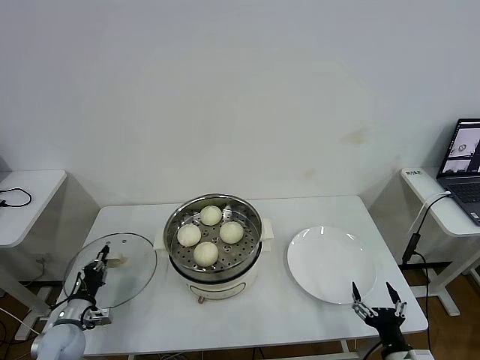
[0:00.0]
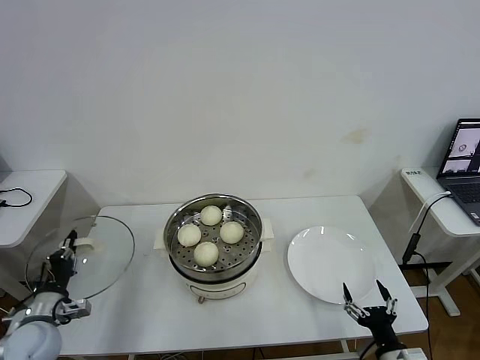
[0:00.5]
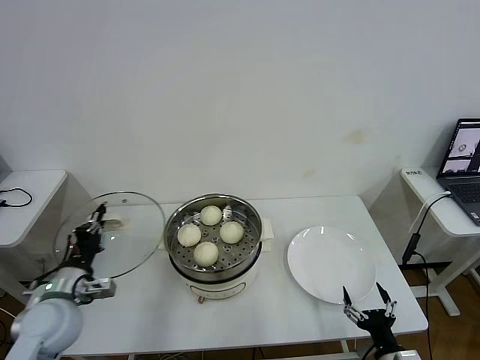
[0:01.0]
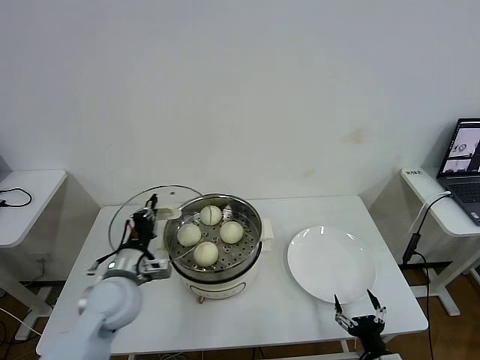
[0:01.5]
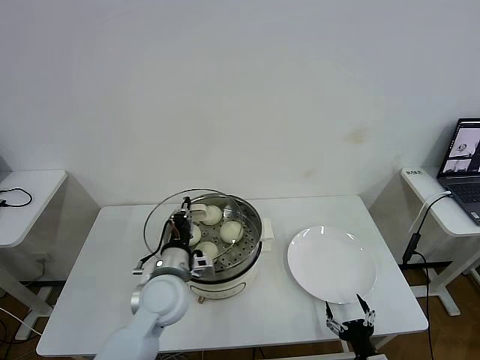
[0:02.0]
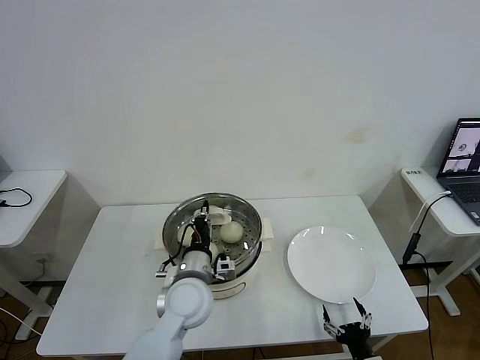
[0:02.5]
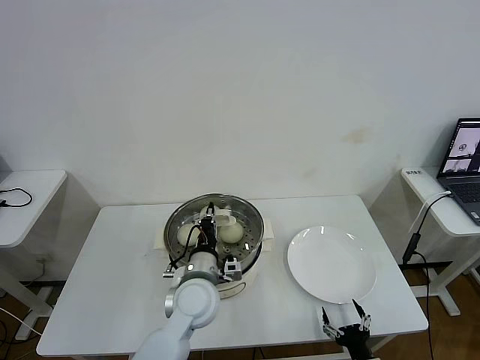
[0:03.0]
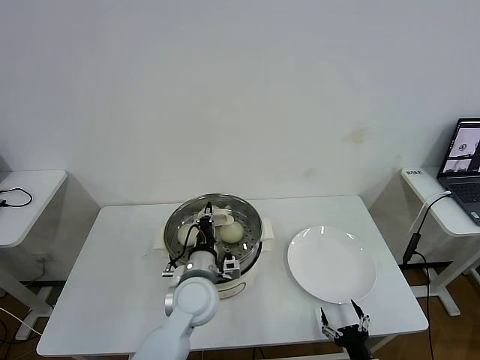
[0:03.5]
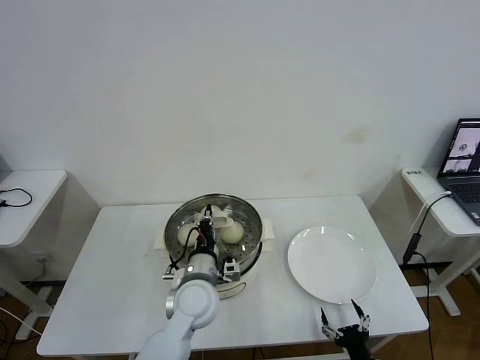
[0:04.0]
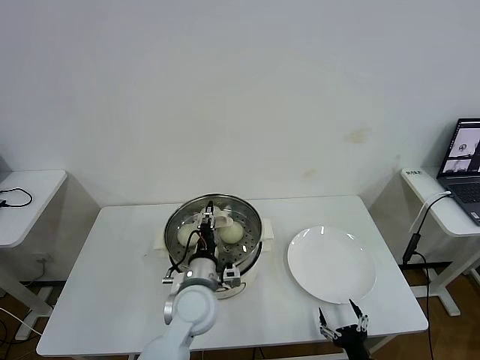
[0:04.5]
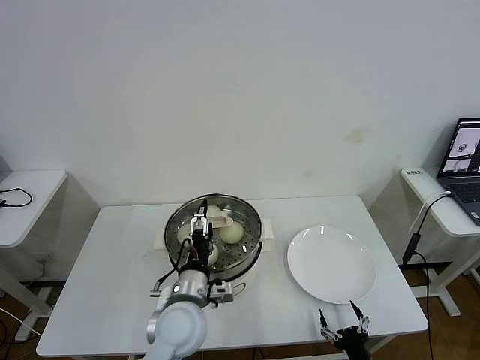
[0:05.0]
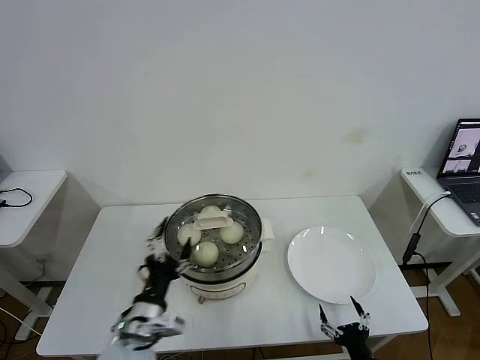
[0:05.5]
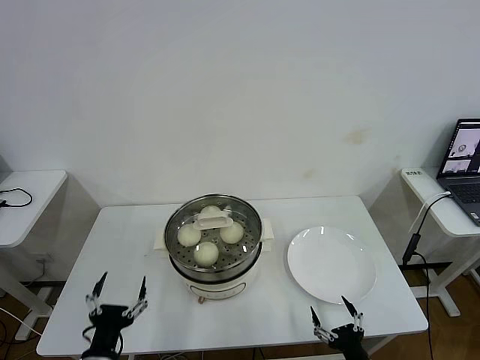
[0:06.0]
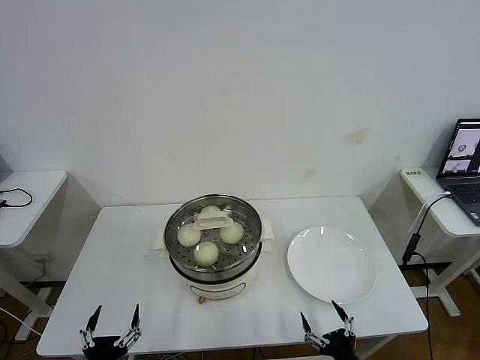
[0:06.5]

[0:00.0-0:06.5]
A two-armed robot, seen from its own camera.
Task of the whole recording: take steamed baozi put them in steamer then cover it.
Step, 0:00.0 to 0:04.5: Place the pot lid on the steamer with left gripper.
0:00.0 to 0:02.0: The left gripper goes some 30 cm to the right and upward; the right gripper moves downward, about 5 cm.
0:02.0 to 0:04.5: The left gripper is displaced to the right by some 5 cm, and opens up.
0:04.5 to 0:06.5: The right gripper shifts by roughly 5 cm, while the left gripper moves backward and to the left, approximately 30 cm, and opens.

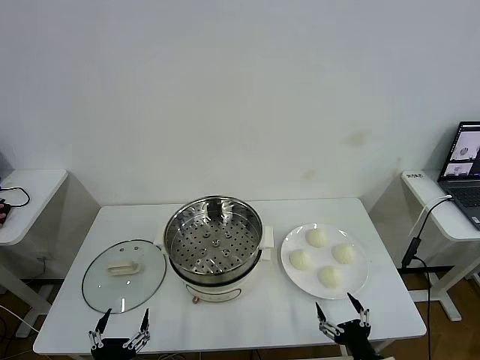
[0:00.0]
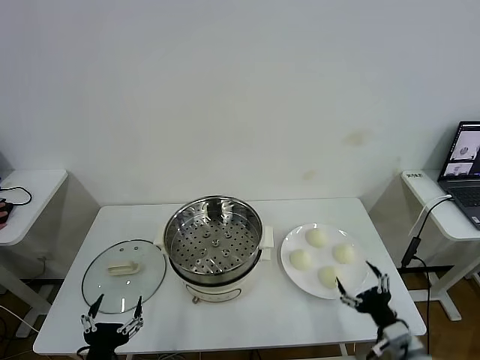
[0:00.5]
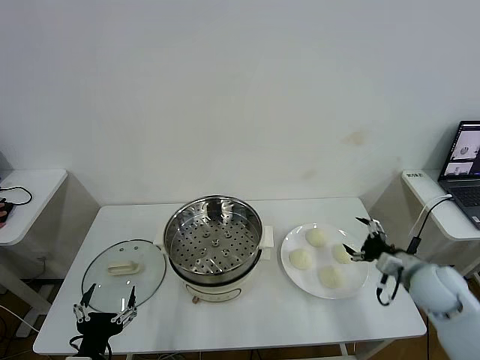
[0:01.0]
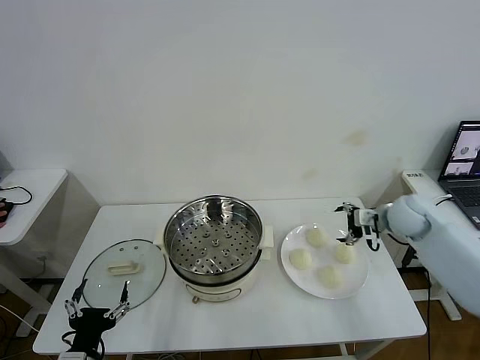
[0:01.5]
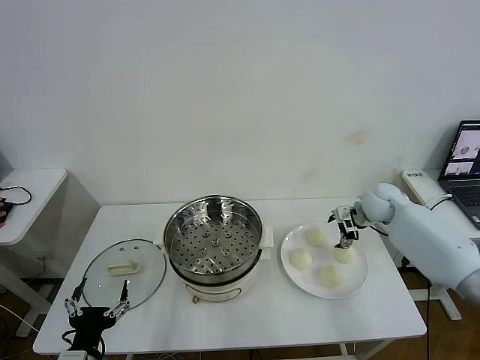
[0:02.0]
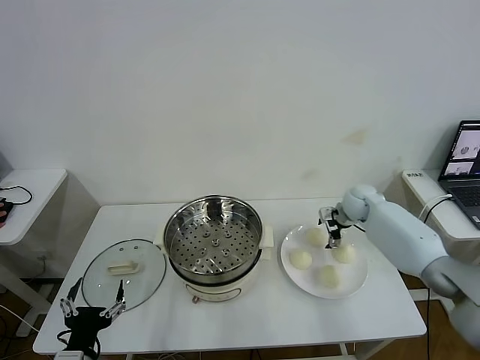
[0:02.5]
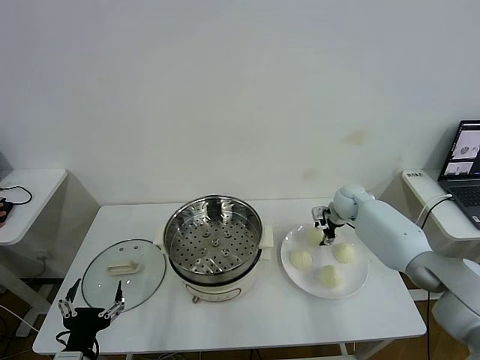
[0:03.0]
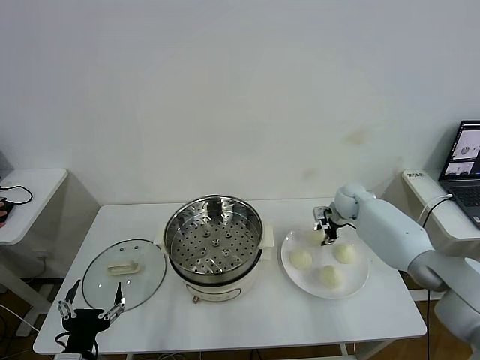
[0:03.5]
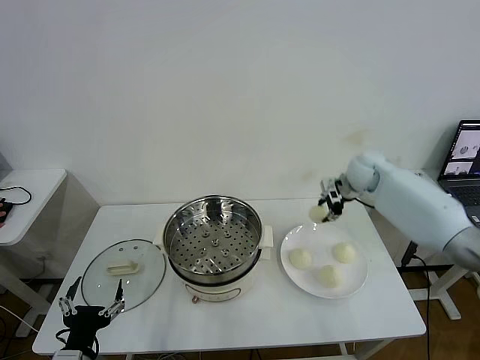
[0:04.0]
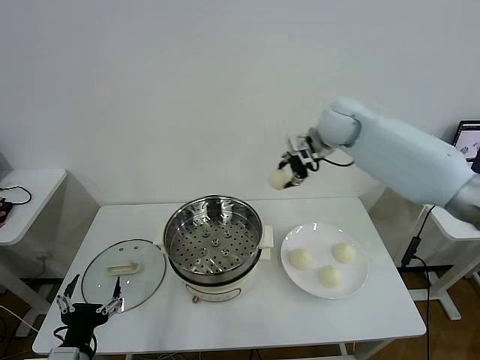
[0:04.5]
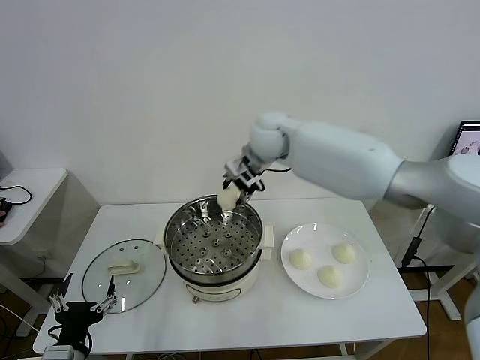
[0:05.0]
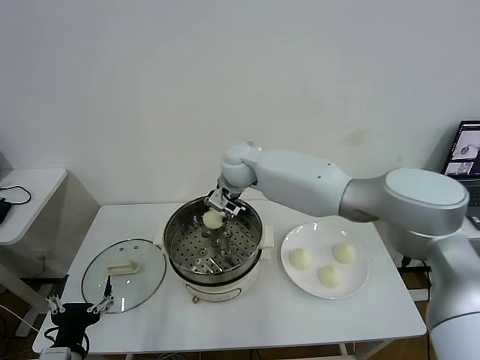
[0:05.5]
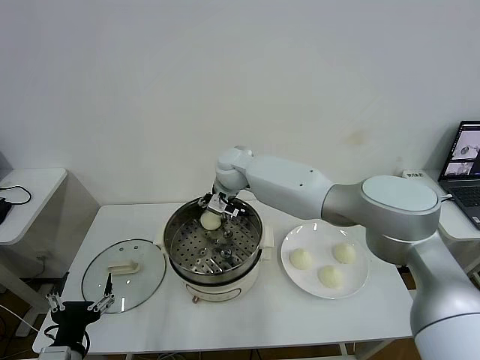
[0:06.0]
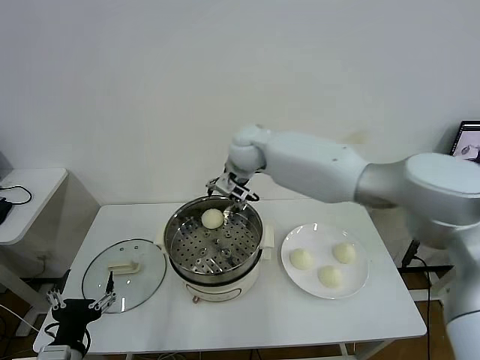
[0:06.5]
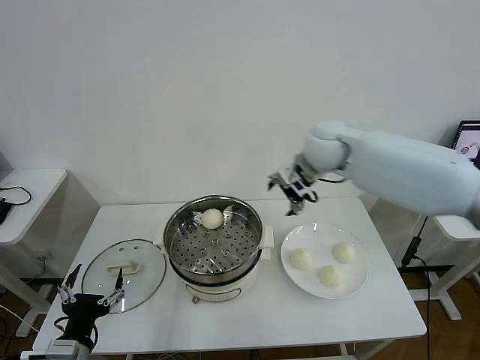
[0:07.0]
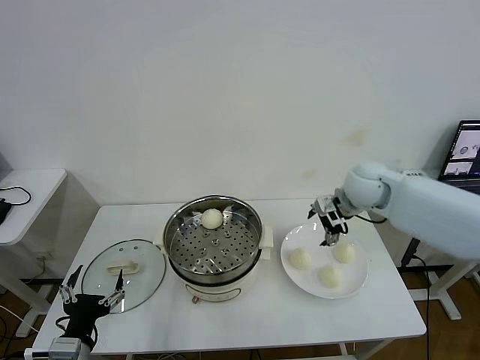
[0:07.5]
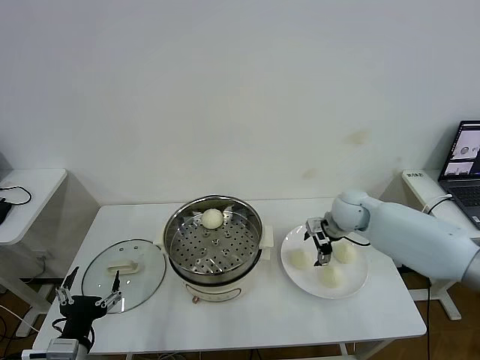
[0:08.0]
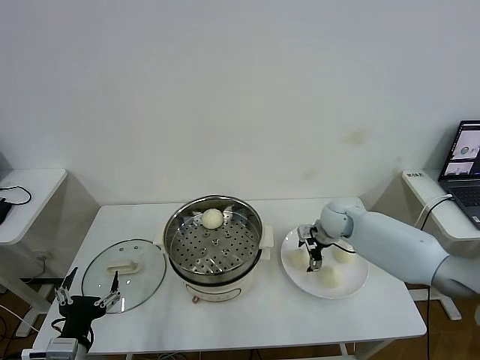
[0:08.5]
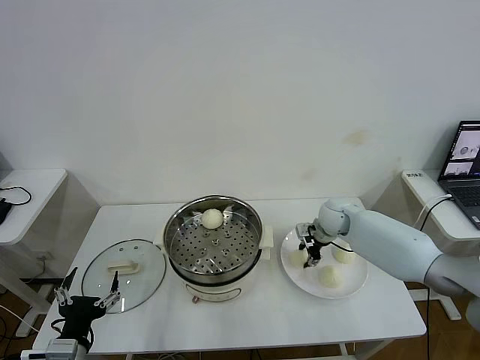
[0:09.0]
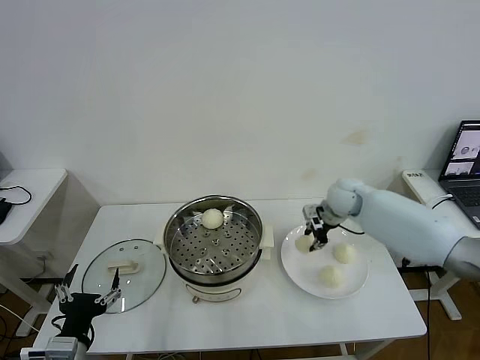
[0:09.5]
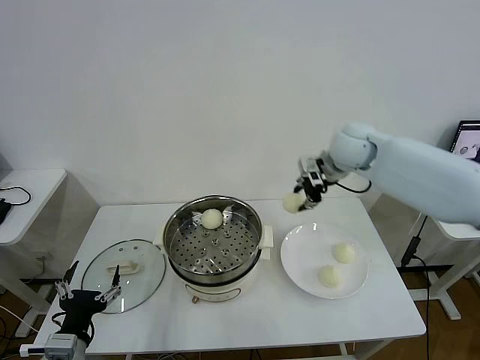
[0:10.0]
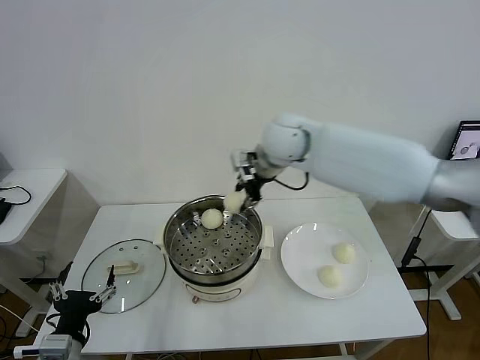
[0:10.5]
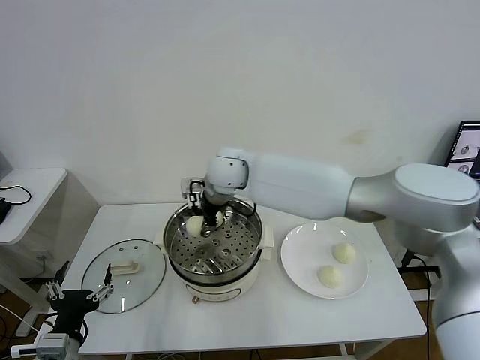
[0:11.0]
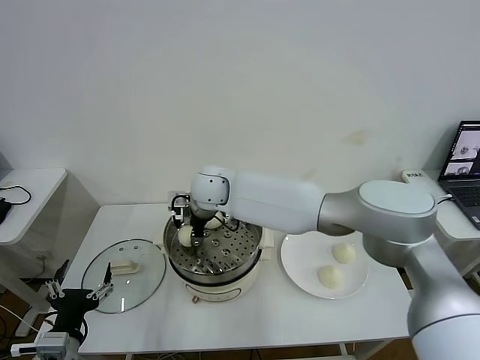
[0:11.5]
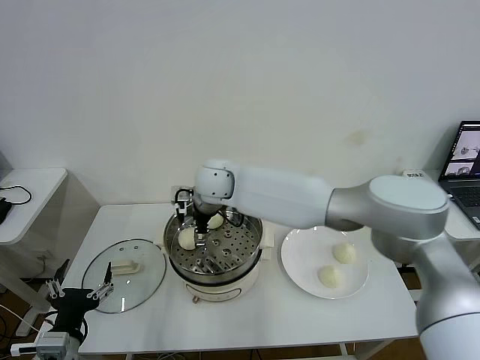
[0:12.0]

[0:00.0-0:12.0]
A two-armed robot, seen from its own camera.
Task of the whole recording: take steamed baozi put them in steamer then cover it.
Step, 0:00.0 to 0:03.0: Grasp the baozi in the plate with right gripper.
Step, 0:03.5 to 0:06.0: Place the baozi on the steamer with right gripper.
Step, 0:06.5 to 0:09.0: Grasp the baozi in the plate with right gripper.
Step, 0:09.5 to 0:12.0: Place the baozi on the steamer with right gripper.
0:02.0 to 0:04.0: The right gripper goes approximately 10 cm upward, and closes its fingers.
0:04.0 to 0:06.0: The right gripper travels to the left by some 35 cm.
0:06.0 to 0:08.0: The right gripper travels to the right by approximately 30 cm, and opens up.
0:08.0 to 0:10.0: The right gripper is displaced upward by about 15 cm, and closes its fingers.
0:10.0 to 0:12.0: The right gripper goes roughly 30 cm to the left, and opens.

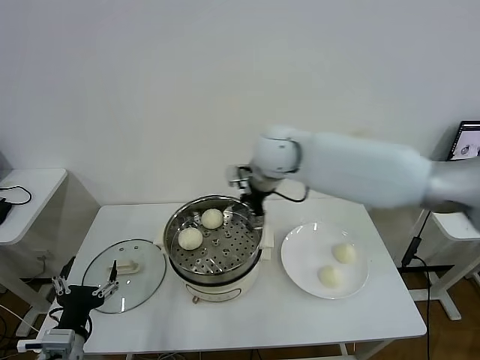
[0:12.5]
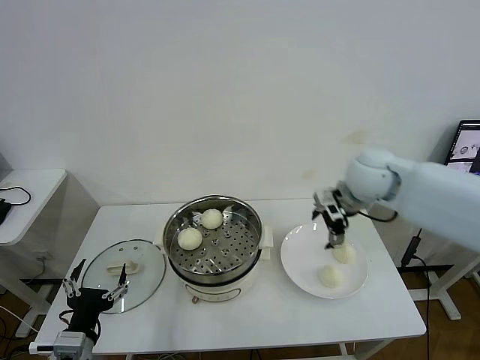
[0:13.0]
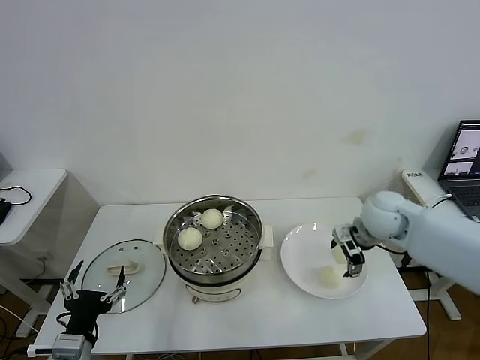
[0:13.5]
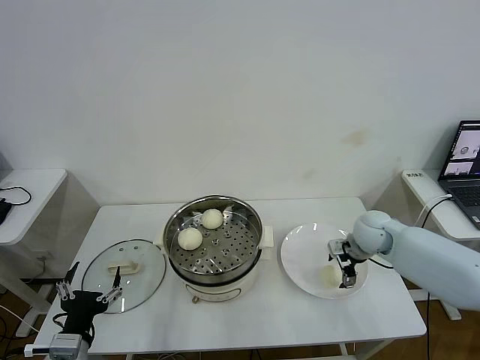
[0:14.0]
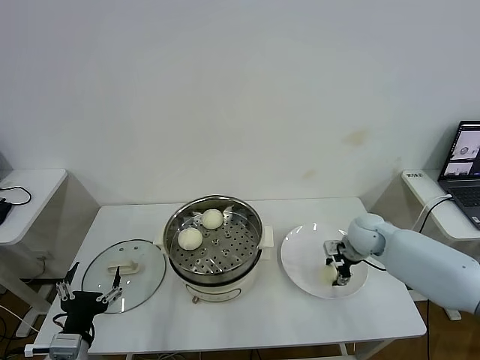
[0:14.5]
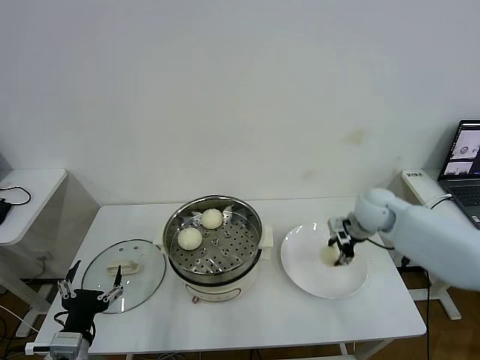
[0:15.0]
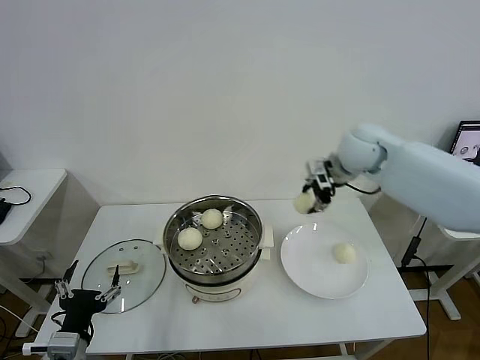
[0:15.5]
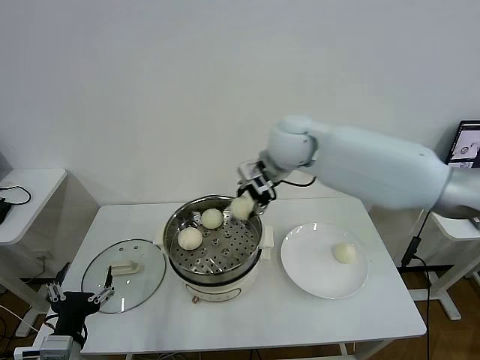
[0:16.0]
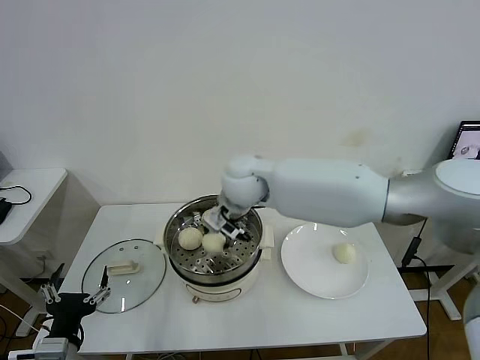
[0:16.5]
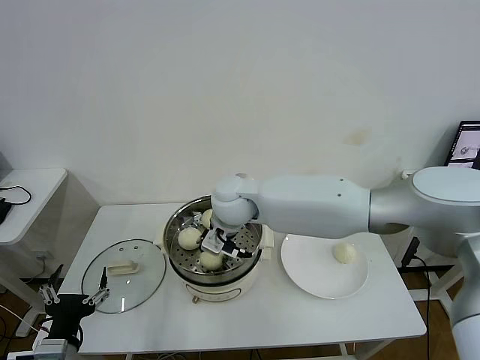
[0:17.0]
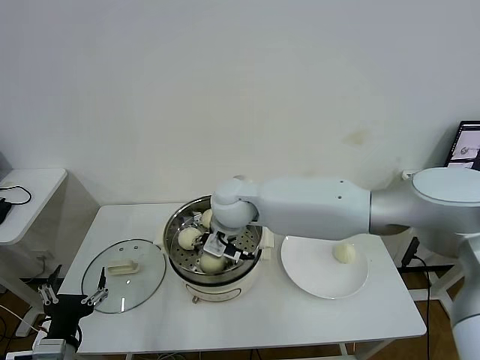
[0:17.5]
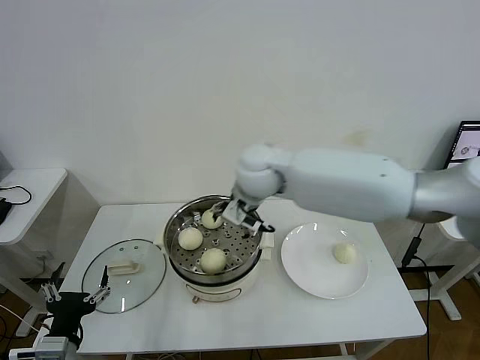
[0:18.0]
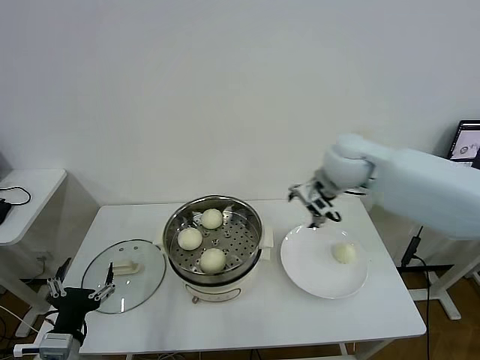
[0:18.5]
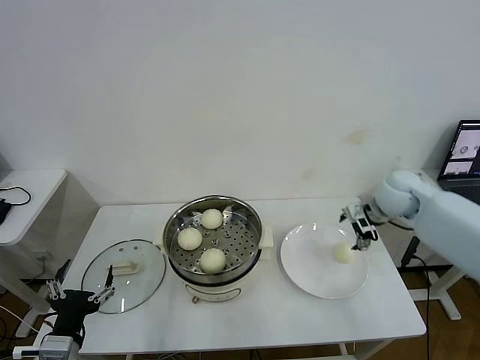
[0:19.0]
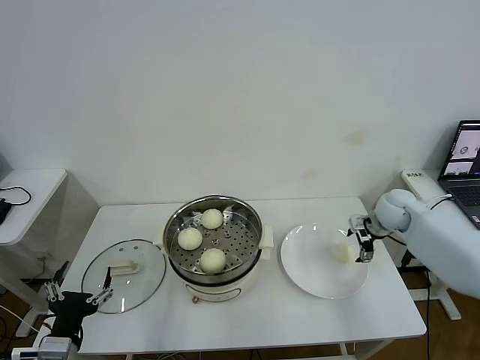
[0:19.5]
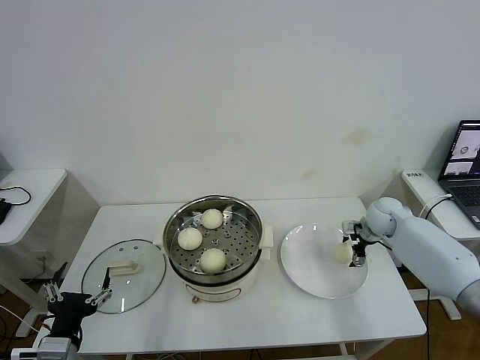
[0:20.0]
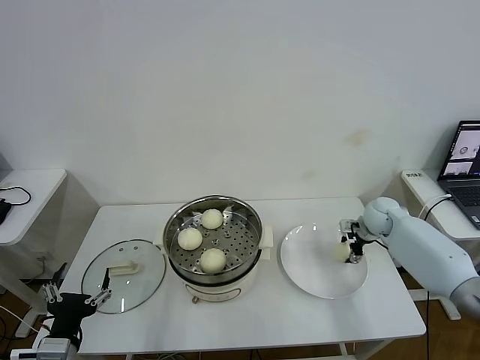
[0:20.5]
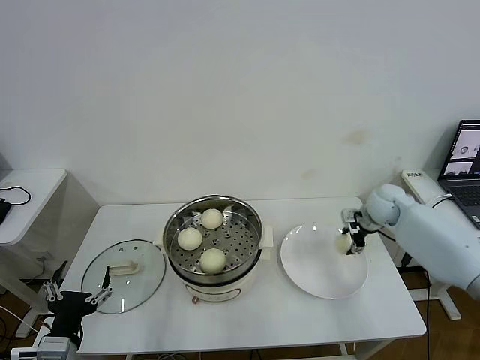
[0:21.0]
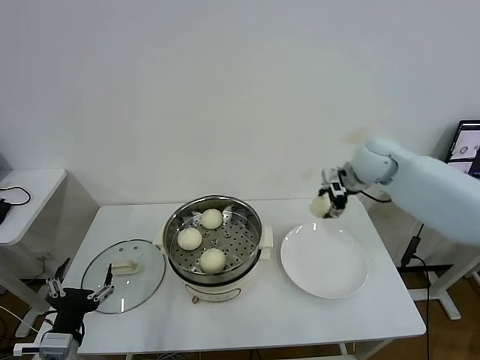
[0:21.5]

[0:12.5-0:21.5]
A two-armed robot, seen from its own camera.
Task of the whole recording: take steamed baozi put them in steamer then cover it.
Step, 0:12.5 to 0:14.5: Grasp the baozi in the plate with right gripper.
Step, 0:15.0 to 0:17.5: Place the baozi on the steamer with right gripper.
Step, 0:18.0 to 0:20.5: Grasp the baozi in the plate with right gripper.
0:12.5 to 0:14.5: The right gripper shifts about 35 cm to the right and downward, and closes its fingers.
0:14.5 to 0:17.0: The right gripper is displaced to the left and upward by some 35 cm.
0:17.0 to 0:19.5: The right gripper is displaced to the right by some 40 cm, and opens up.
0:19.5 to 0:21.5: The right gripper moves upward and to the left, approximately 15 cm, and closes up.
